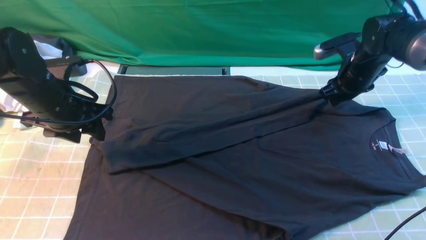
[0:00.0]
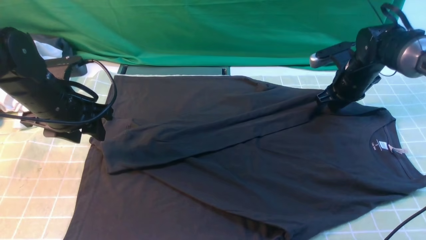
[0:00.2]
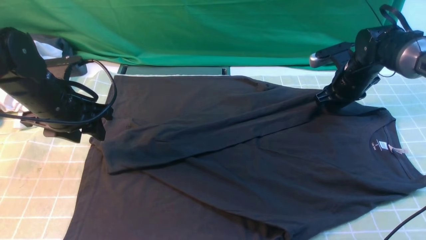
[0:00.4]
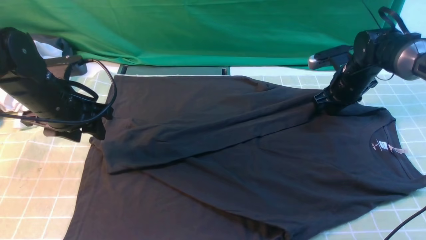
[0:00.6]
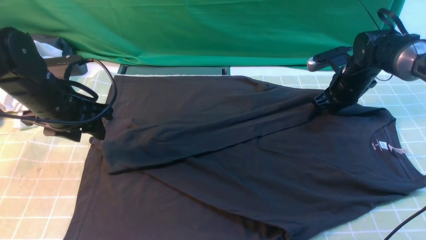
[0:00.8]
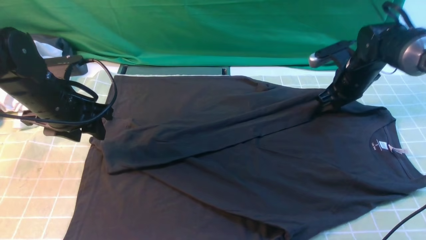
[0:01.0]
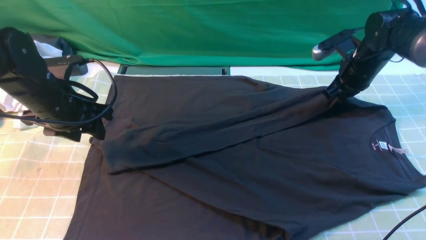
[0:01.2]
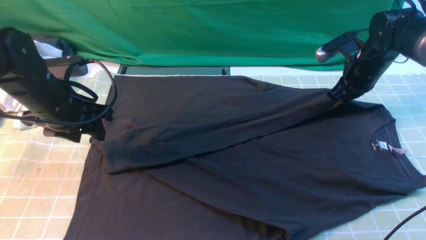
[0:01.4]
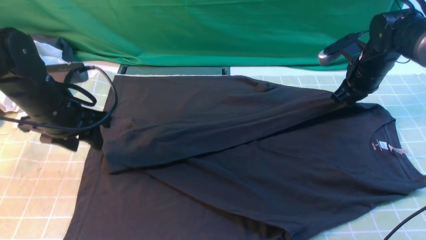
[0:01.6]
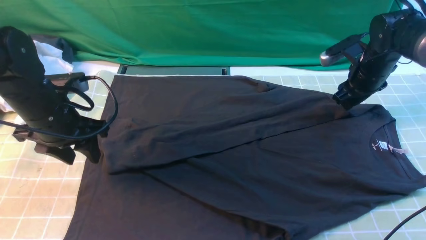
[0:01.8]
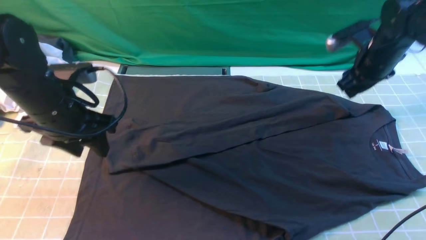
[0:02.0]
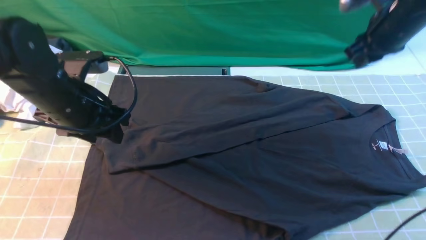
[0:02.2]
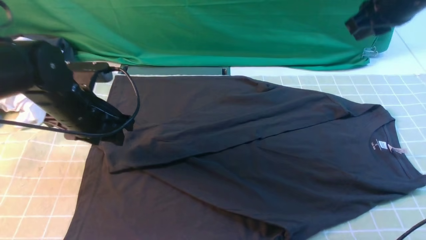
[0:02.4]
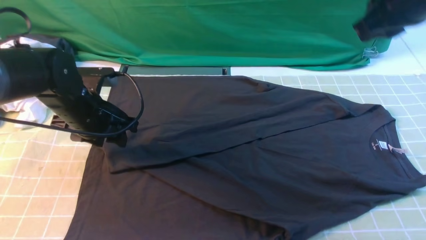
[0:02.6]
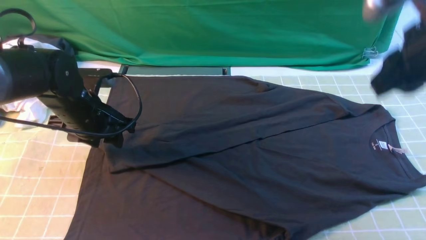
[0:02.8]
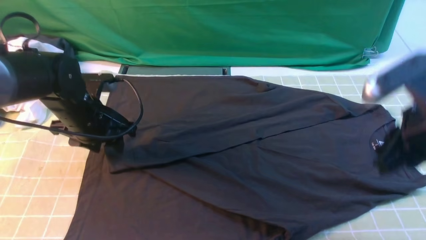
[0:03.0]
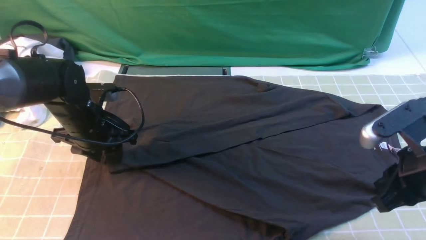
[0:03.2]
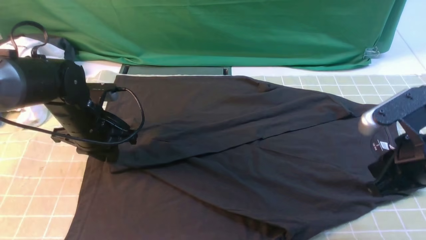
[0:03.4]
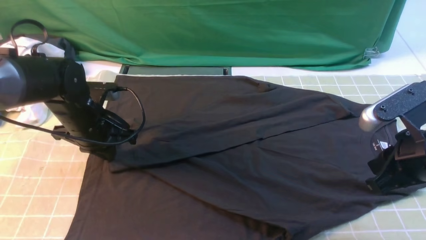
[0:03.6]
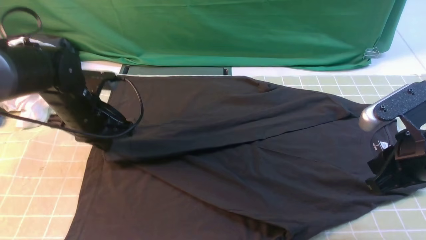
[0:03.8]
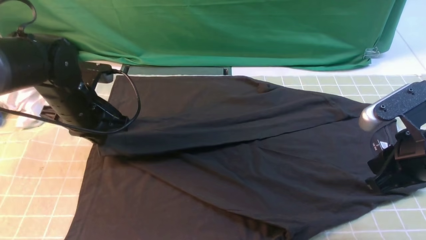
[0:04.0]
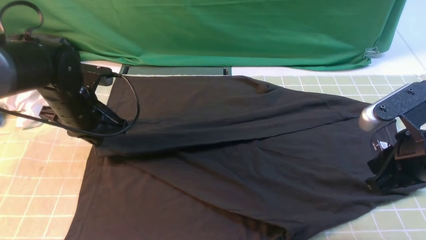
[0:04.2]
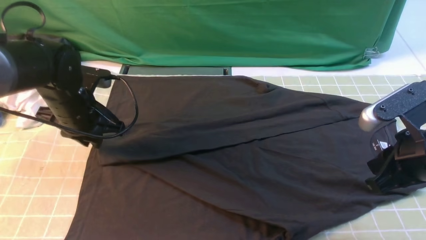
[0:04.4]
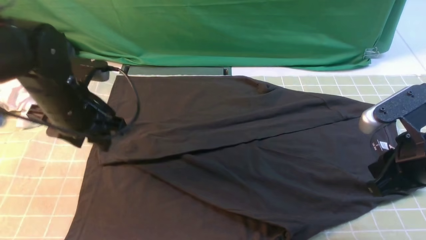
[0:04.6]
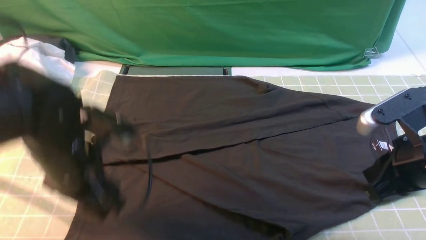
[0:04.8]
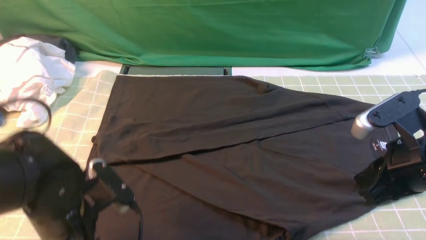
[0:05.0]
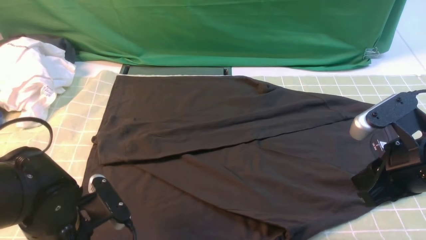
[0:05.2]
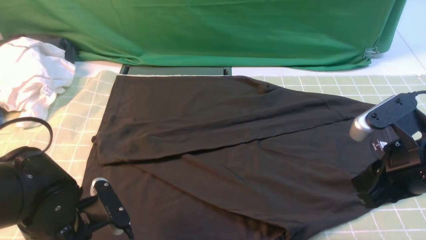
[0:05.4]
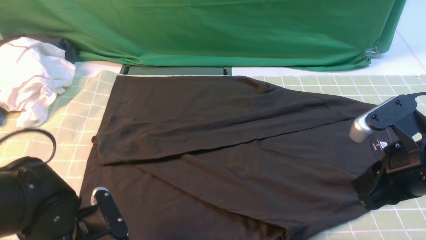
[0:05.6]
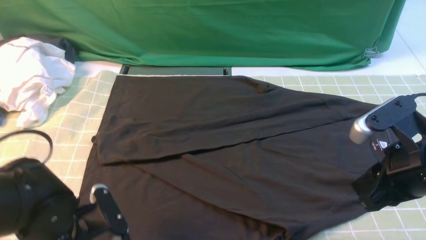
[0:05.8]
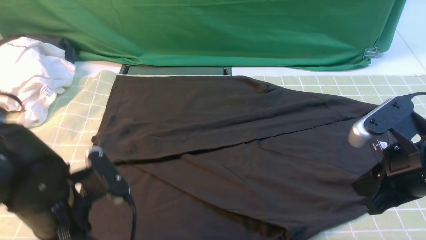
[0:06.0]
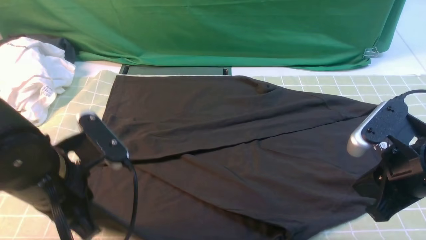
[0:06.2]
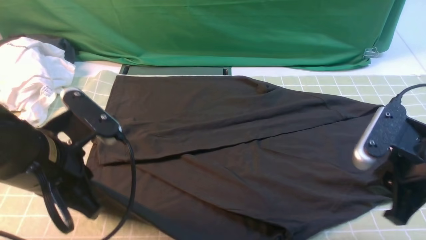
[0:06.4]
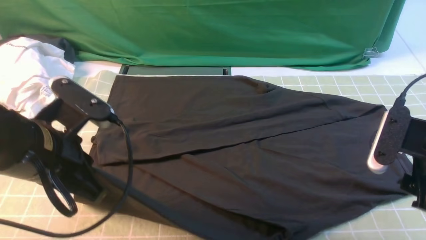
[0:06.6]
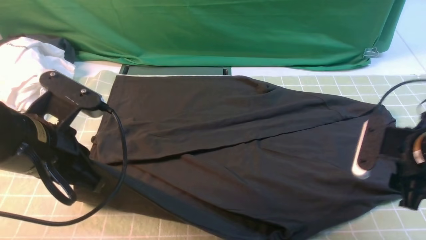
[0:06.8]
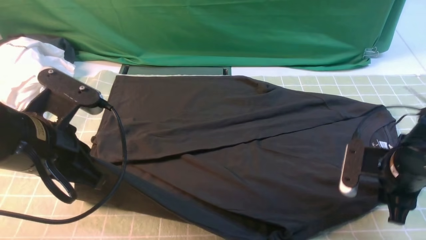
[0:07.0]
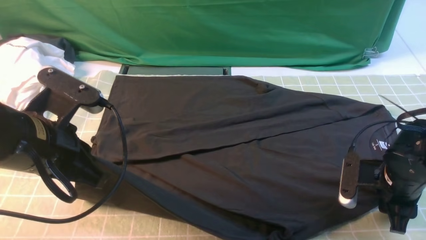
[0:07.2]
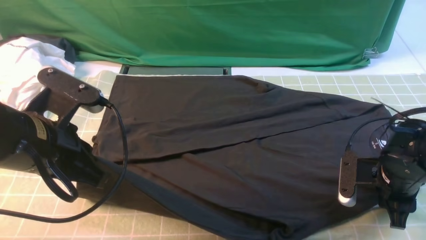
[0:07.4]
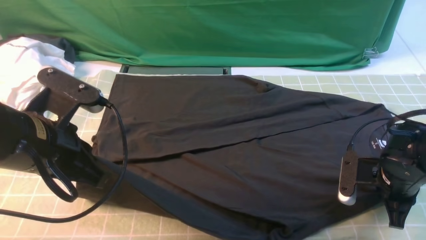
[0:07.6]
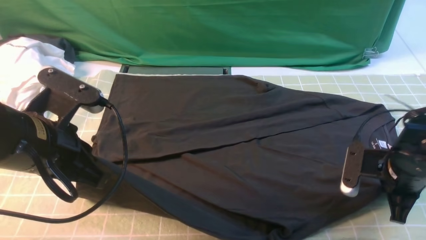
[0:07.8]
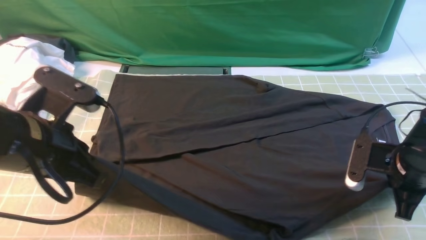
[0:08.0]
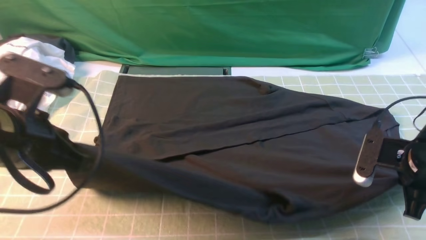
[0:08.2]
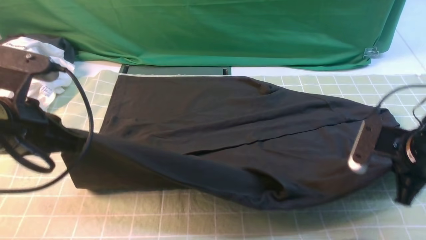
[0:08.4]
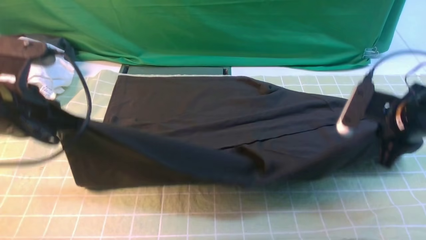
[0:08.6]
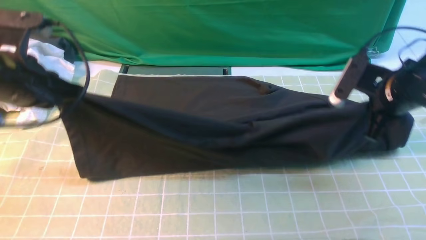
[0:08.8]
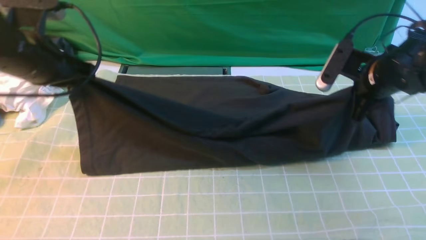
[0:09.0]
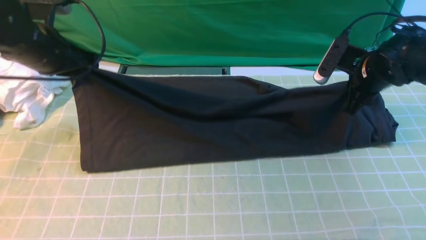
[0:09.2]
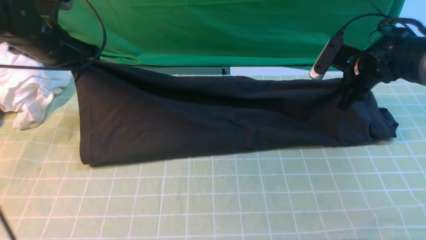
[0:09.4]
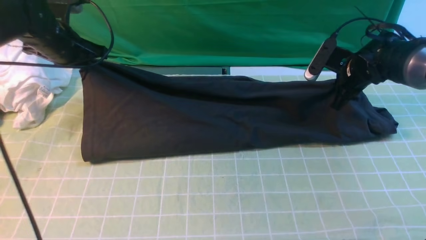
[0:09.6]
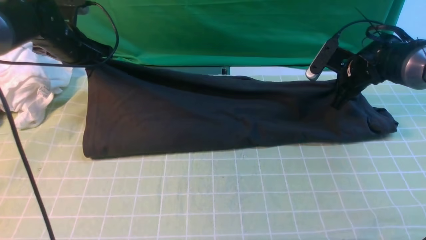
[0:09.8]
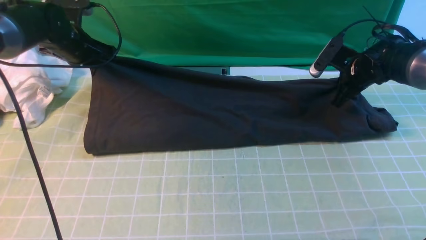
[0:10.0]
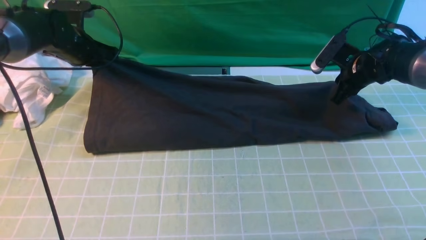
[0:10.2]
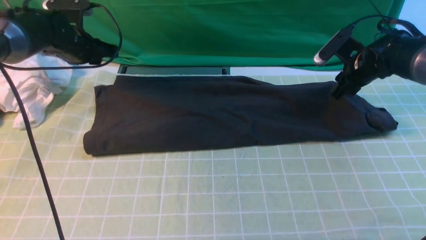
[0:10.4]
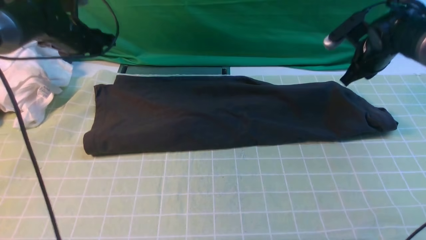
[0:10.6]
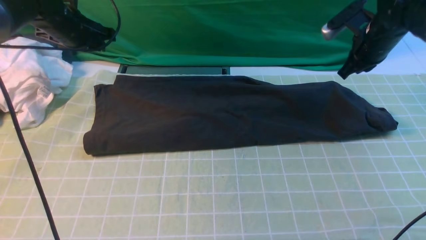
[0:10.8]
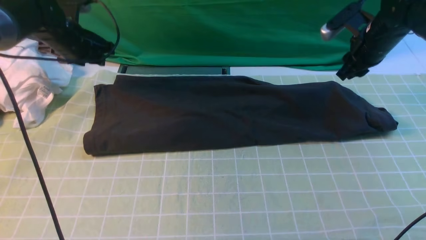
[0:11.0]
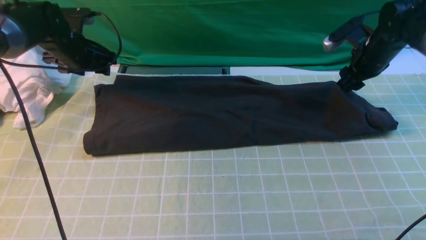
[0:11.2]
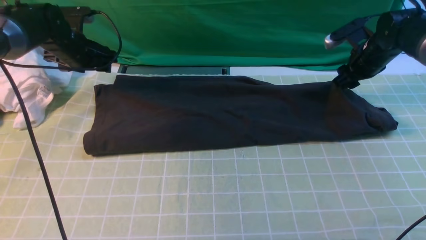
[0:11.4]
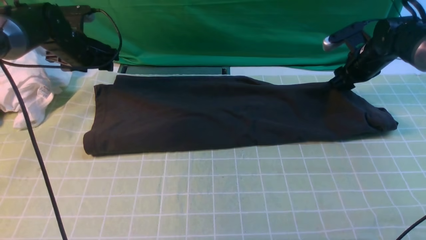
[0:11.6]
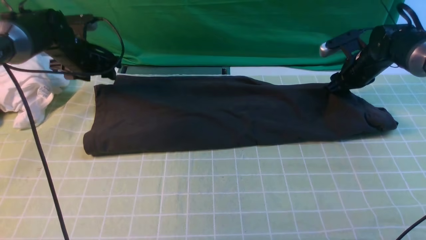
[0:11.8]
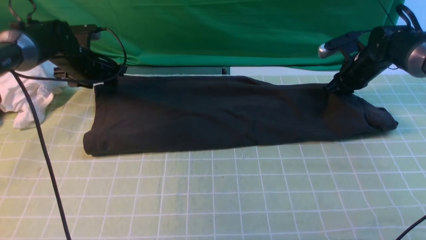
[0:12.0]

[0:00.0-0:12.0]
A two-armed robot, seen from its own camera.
Step, 0:00.0 to 0:04.4: use the left arm to drag and drop the cuff onto the cuff closest to the left arm.
Step, 0:04.8 to 0:07.6: use both arms simultaneously to clamp the lower edge of the clothing fabric.
0:00.0 to 0:01.6: The right gripper closes and opens again.
0:01.6 to 0:03.0: The left gripper ends up approximately 5 cm from where it was; the right gripper travels backward by approximately 25 cm, and opens, then closes again.
0:03.0 to 0:04.4: The left gripper closes and opens again.
0:04.4 to 0:06.0: The left gripper moves backward, some 15 cm, and opens and closes again.
0:06.0 to 0:07.6: The right gripper moves downward and forward, about 15 cm, and opens, then closes once more. Meanwhile the left gripper shifts about 5 cm upward.
0:07.6 to 0:09.0: The left gripper shifts roughly 15 cm forward and to the left; the right gripper shifts approximately 15 cm forward and upward.
0:09.0 to 0:10.4: The left gripper heads forward and downward, covering about 15 cm, and opens up, while the right gripper travels forward by roughly 10 cm, and opens up.
0:10.4 to 0:12.0: The left gripper goes roughly 5 cm downward, and opens. Meanwhile the right gripper opens, then closes once more.

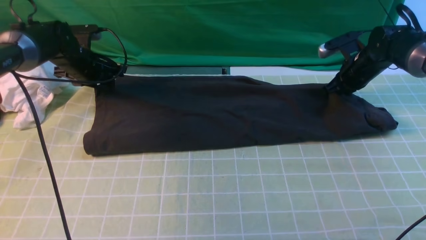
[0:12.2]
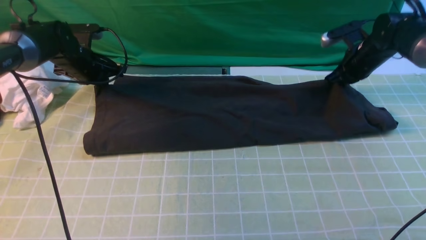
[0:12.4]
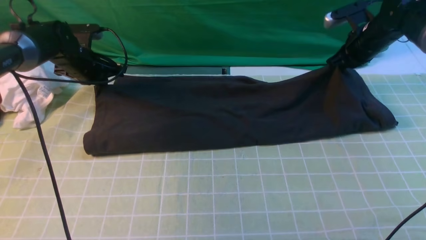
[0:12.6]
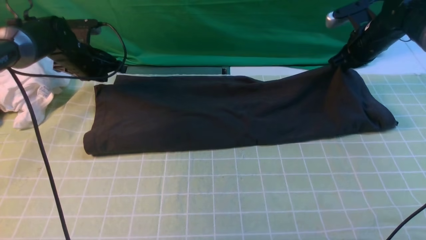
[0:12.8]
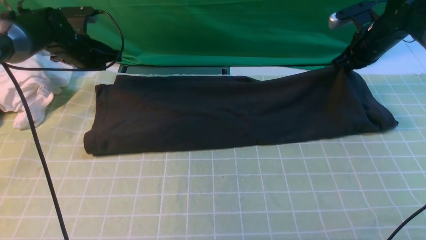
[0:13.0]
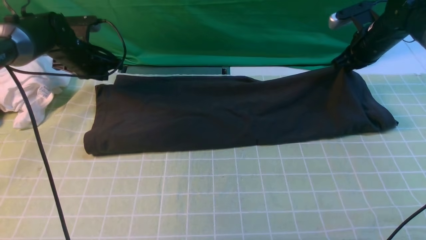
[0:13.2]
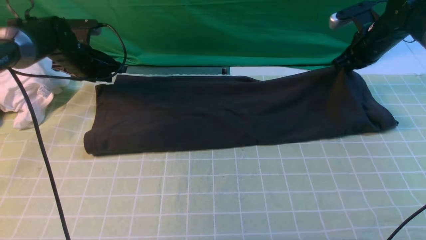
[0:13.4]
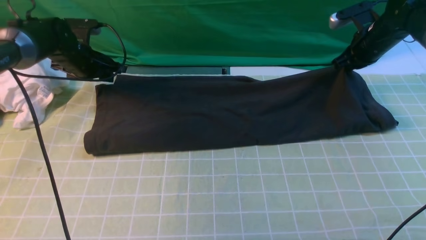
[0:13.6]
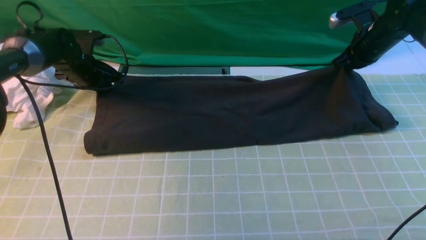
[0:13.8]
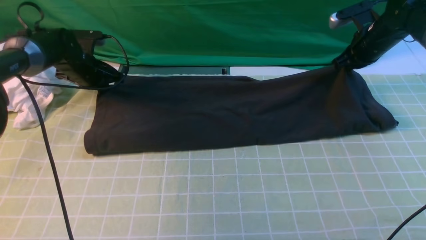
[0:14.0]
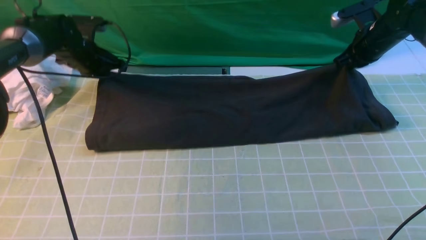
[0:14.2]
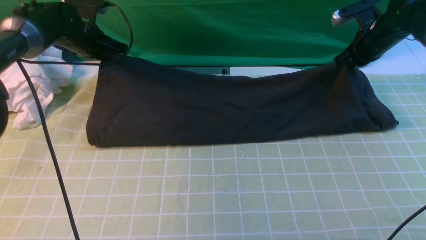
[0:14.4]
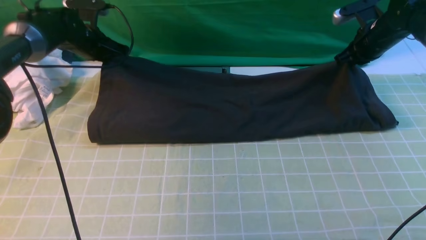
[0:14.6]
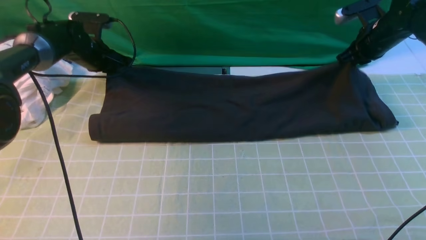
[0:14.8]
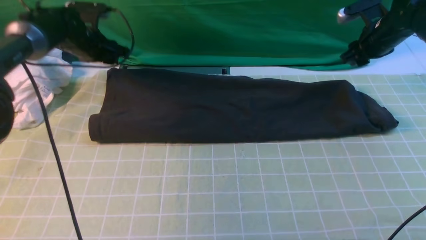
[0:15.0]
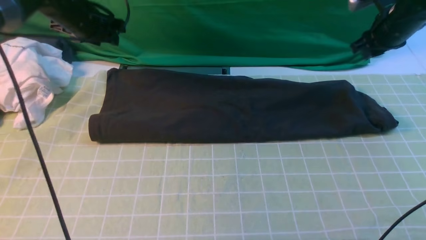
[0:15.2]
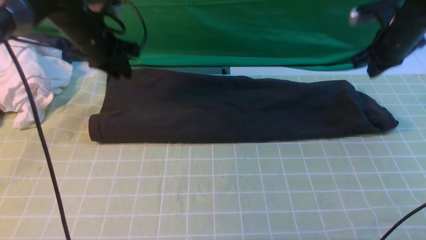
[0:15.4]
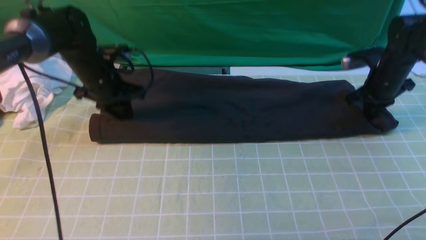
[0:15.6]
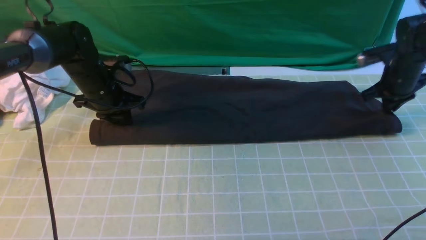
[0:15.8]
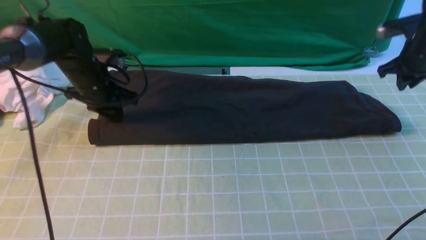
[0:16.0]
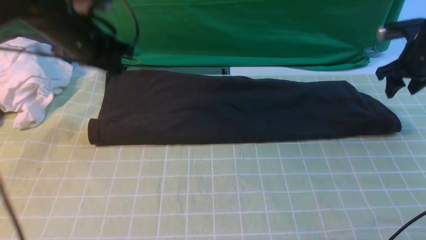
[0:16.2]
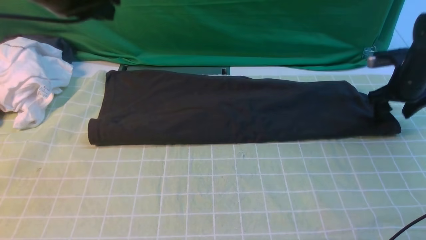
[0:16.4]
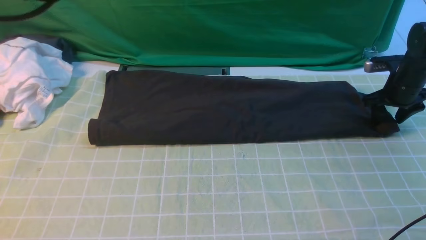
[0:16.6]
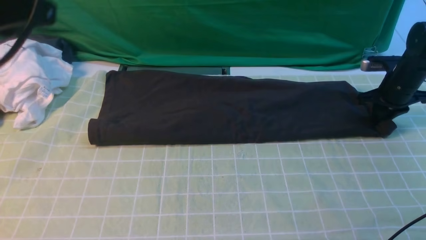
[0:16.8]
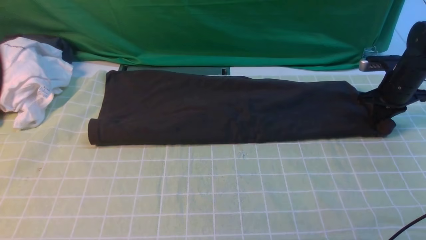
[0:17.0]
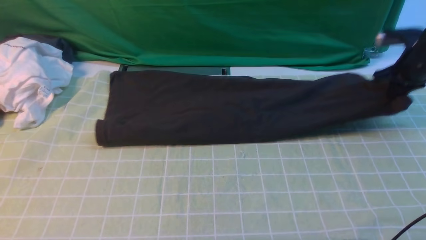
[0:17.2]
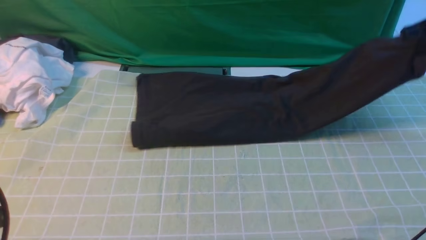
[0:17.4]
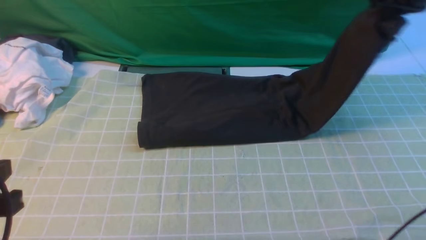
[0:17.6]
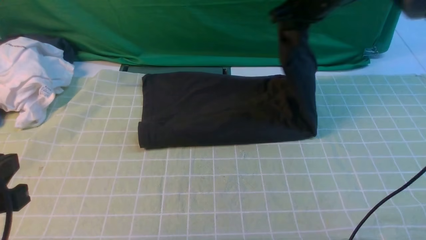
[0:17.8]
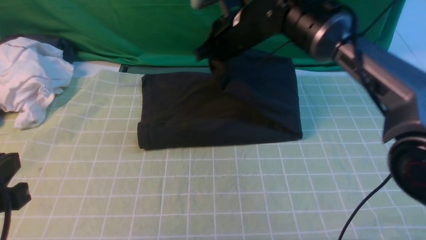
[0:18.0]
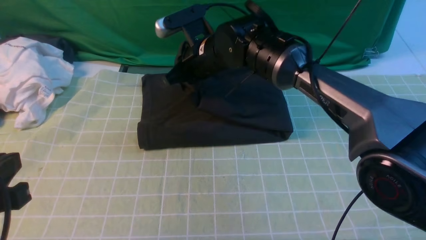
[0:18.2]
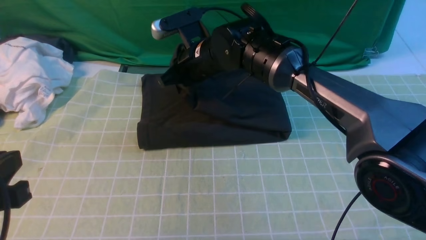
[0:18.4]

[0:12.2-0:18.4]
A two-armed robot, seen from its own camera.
Step, 0:12.2 to 0:14.8: use both arms to drag the lower edge of the fabric forward and fold it over the upper edge.
Step, 0:15.0 to 0:17.0: use the right arm to clamp the right edge of the fabric.
0:12.2 to 0:13.8: The right gripper goes about 5 cm upward. The left gripper closes and opens again.
0:13.8 to 0:15.4: The right gripper opens, then closes once more; the left gripper moves upward and to the right, some 10 cm, and closes and opens again.
0:15.4 to 0:16.8: The left gripper shifts some 35 cm backward and upward, while the right gripper is displaced downward by roughly 5 cm, and opens up.
0:16.8 to 0:18.4: The right gripper travels to the left by about 40 cm. The left gripper moves downward and backward, roughly 15 cm.
